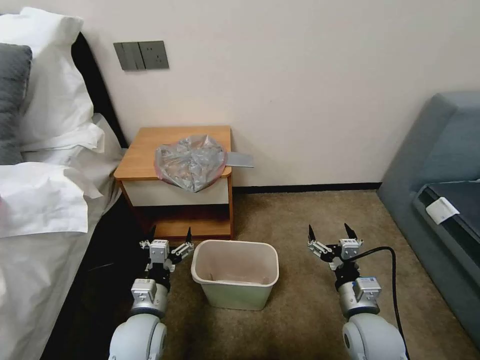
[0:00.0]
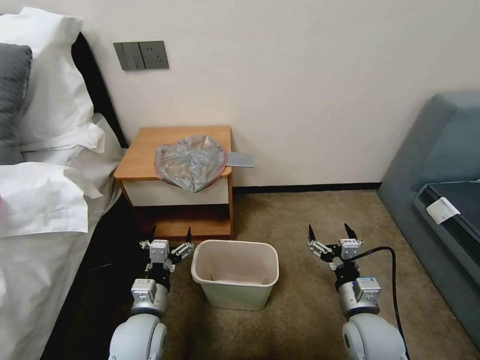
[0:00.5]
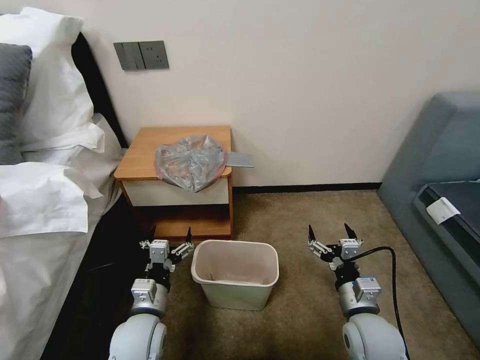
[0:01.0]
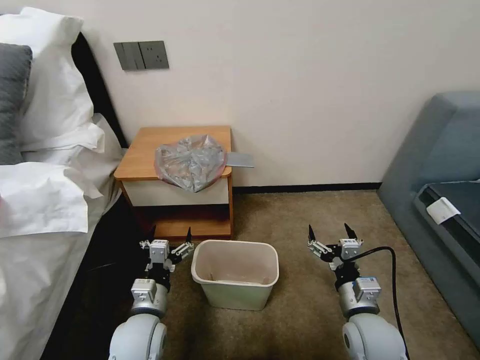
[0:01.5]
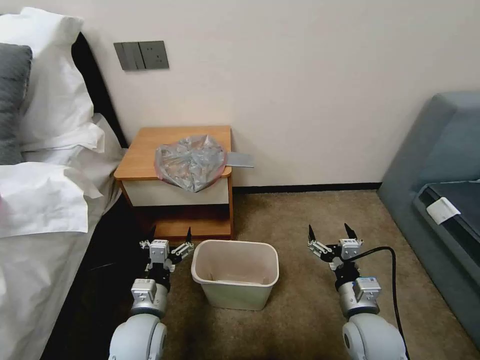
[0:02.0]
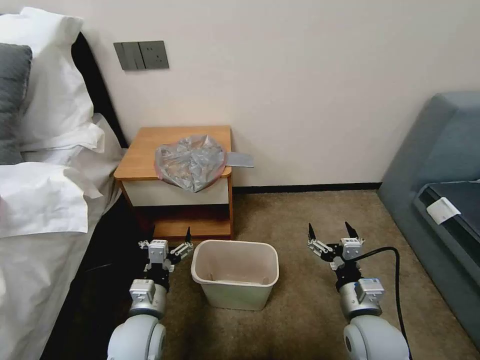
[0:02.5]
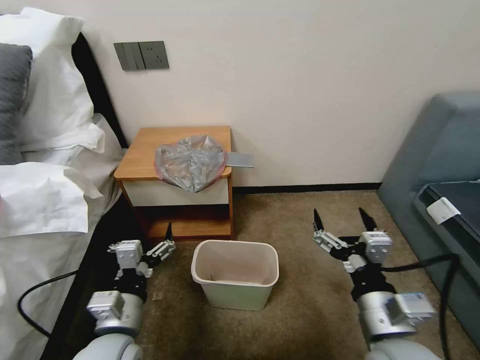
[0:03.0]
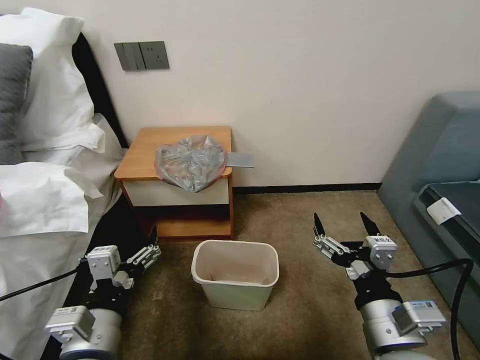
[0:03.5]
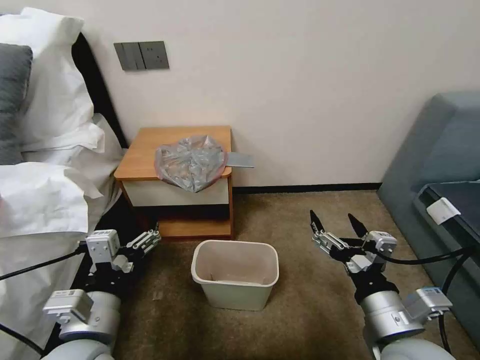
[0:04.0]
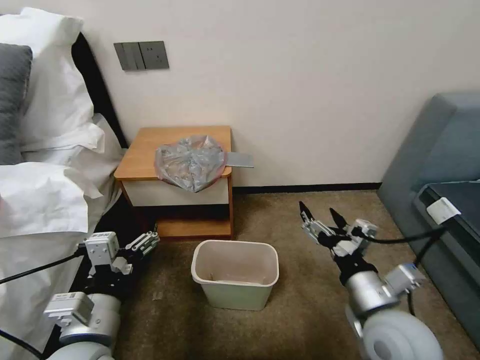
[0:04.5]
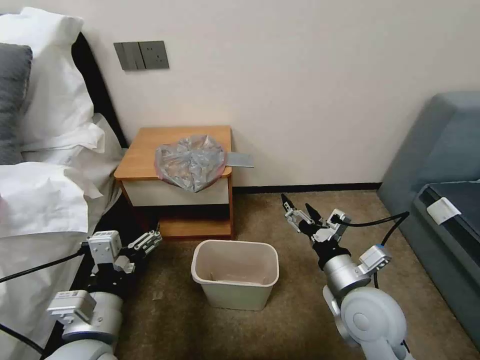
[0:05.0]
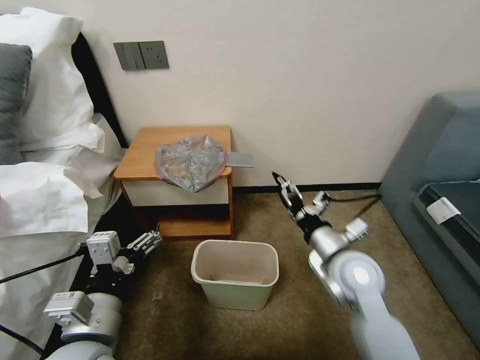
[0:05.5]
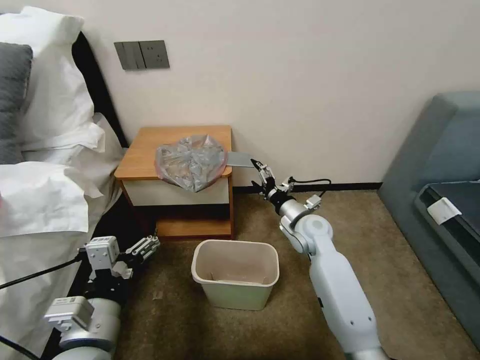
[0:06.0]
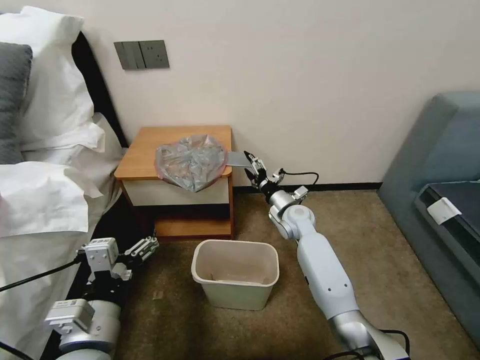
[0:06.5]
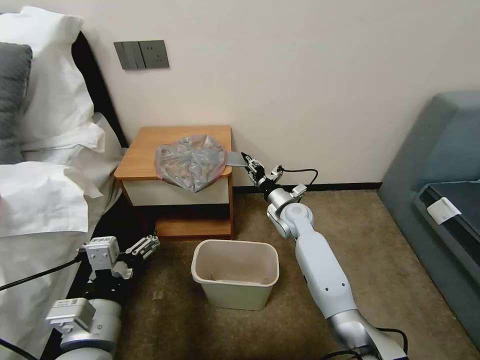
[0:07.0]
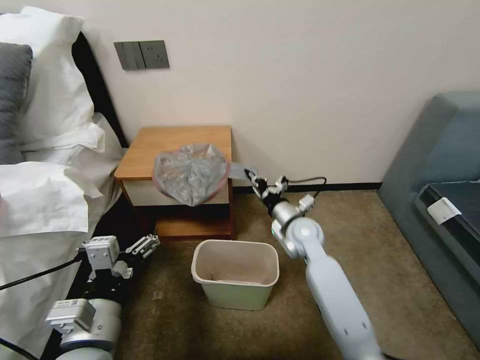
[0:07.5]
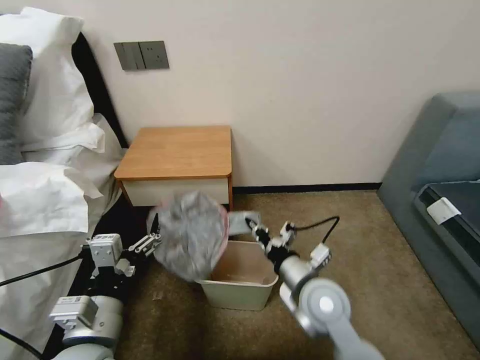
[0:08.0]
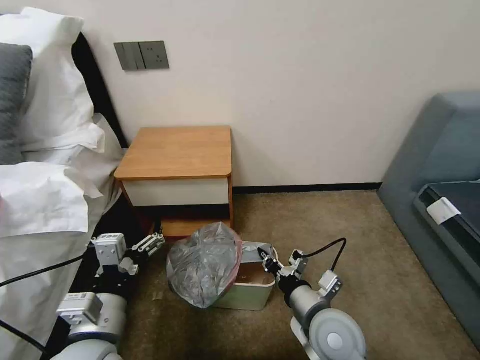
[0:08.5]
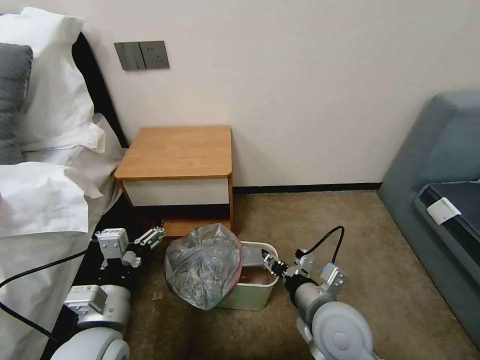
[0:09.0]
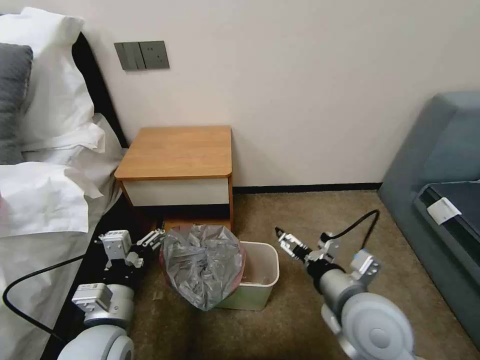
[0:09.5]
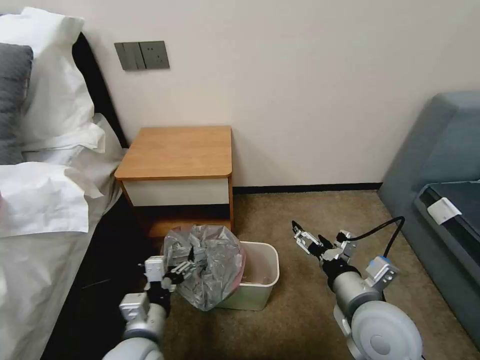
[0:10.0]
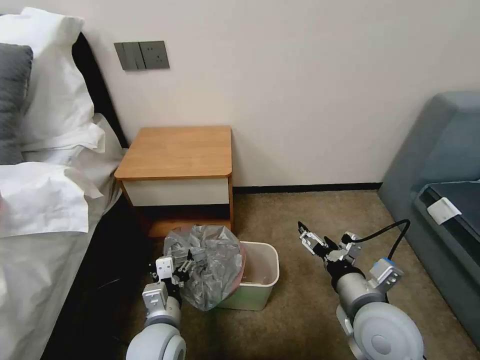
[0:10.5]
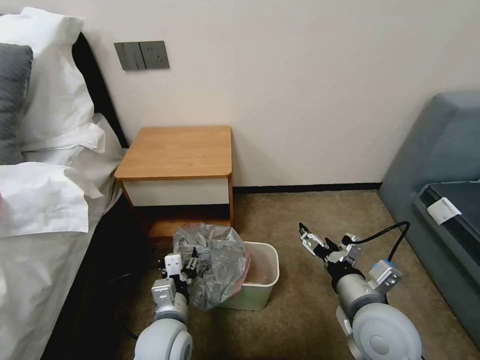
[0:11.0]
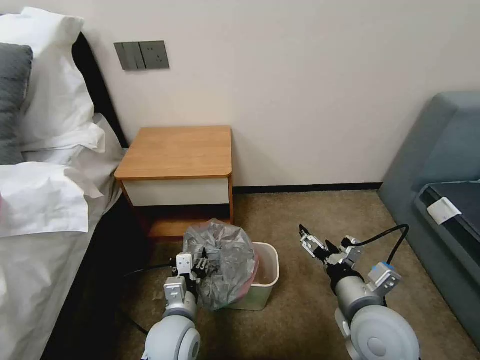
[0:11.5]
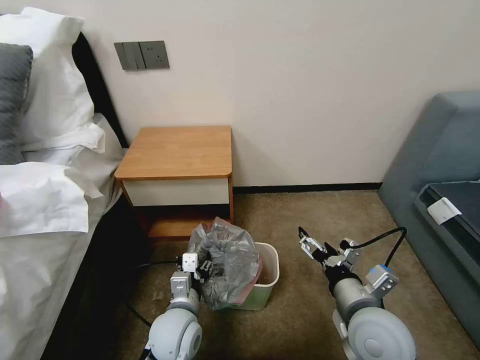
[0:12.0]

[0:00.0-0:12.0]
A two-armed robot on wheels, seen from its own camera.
Task of the whole recording: Pick up the garbage bag from the table and place it over the trash can.
0:02.0 to 0:04.0: Both grippers travel together upward and backward, about 15 cm.
0:04.0 to 0:06.0: The right gripper is displaced forward by roughly 30 cm.
0:06.0 to 0:08.0: The right gripper shifts about 15 cm backward, and closes up.
0:08.0 to 0:10.0: The left gripper is displaced downward by approximately 10 cm. Meanwhile the right gripper travels backward and to the right by roughly 10 cm, and opens its fingers.
0:10.0 to 0:12.0: The left gripper moves forward and to the right, roughly 10 cm, and closes its fingers.

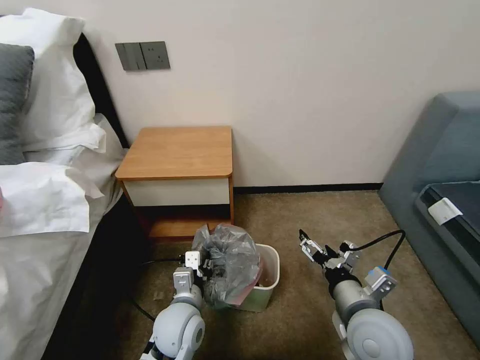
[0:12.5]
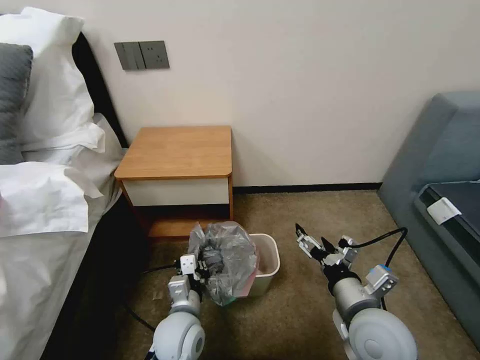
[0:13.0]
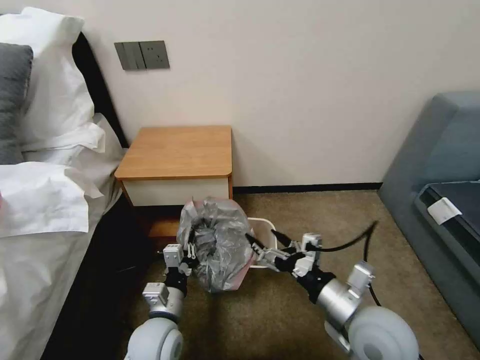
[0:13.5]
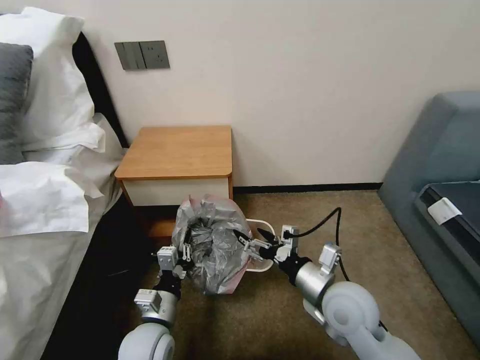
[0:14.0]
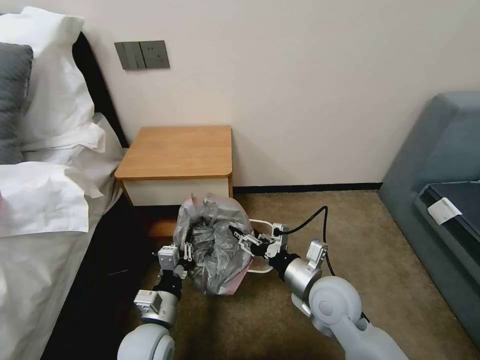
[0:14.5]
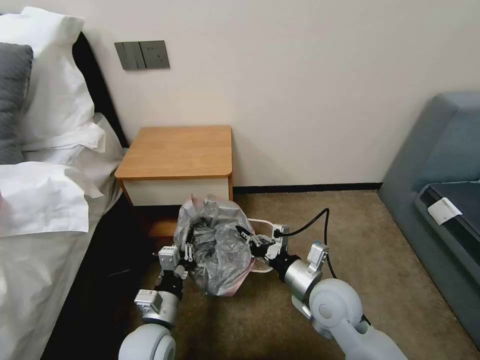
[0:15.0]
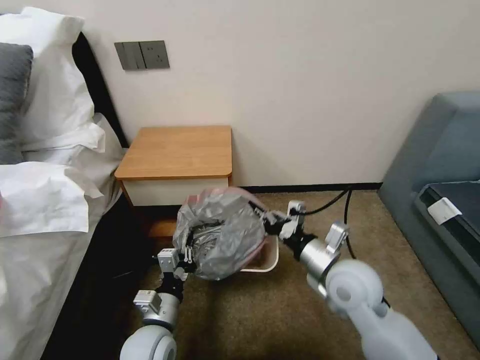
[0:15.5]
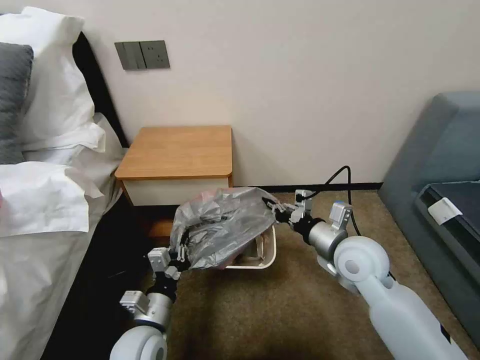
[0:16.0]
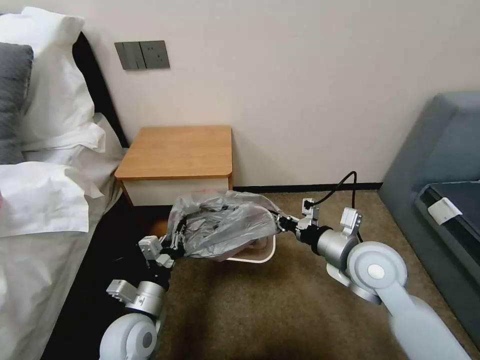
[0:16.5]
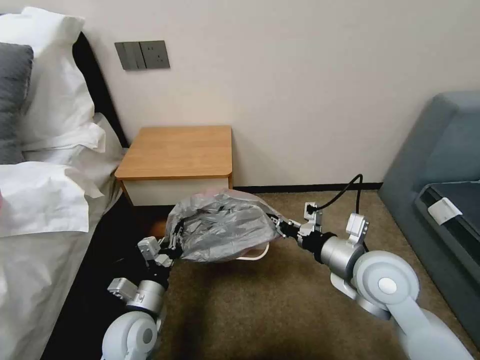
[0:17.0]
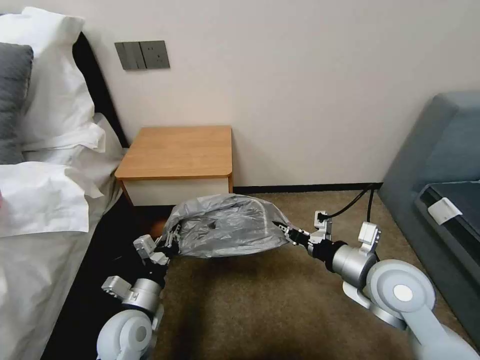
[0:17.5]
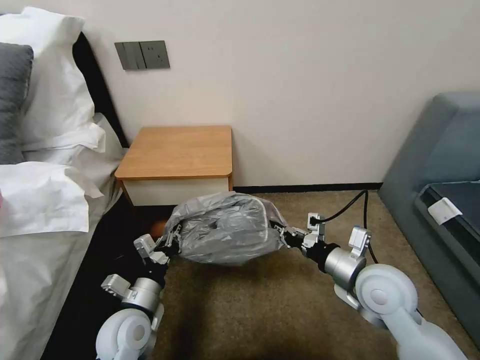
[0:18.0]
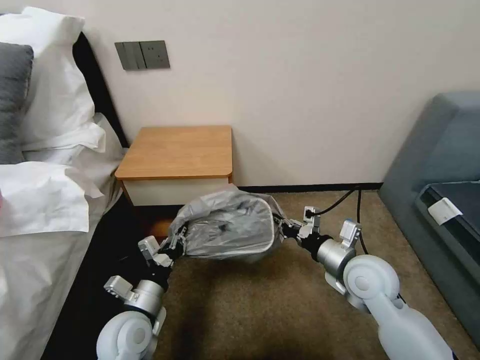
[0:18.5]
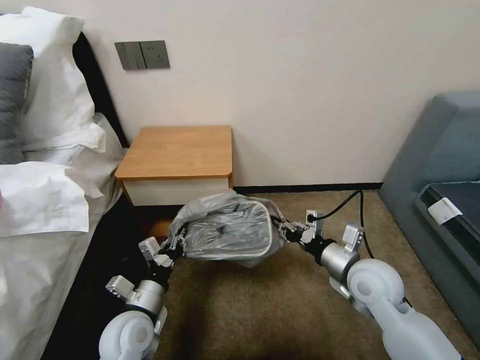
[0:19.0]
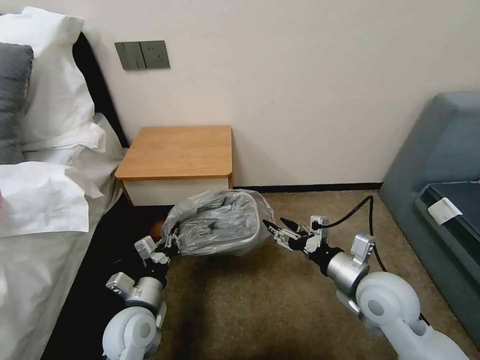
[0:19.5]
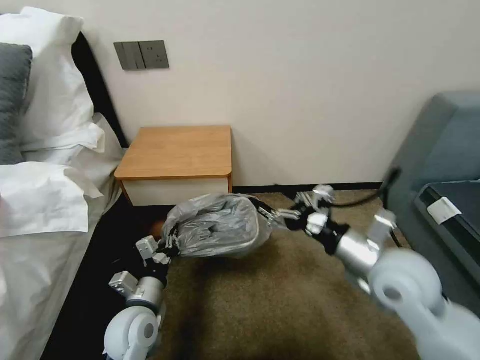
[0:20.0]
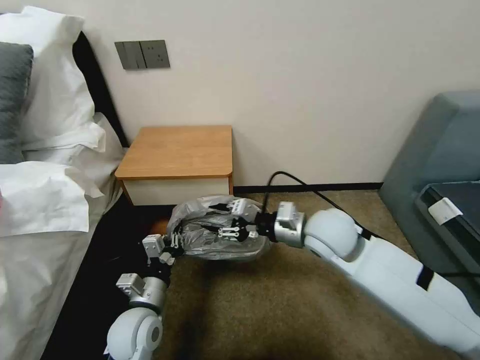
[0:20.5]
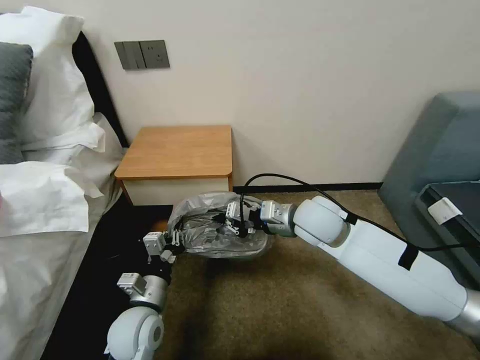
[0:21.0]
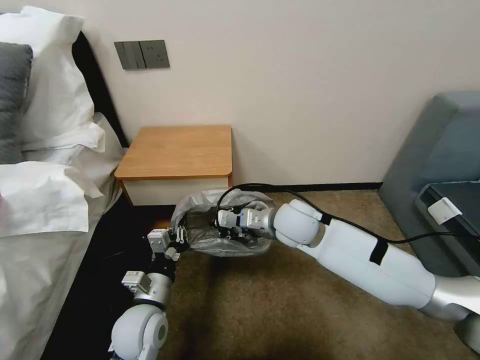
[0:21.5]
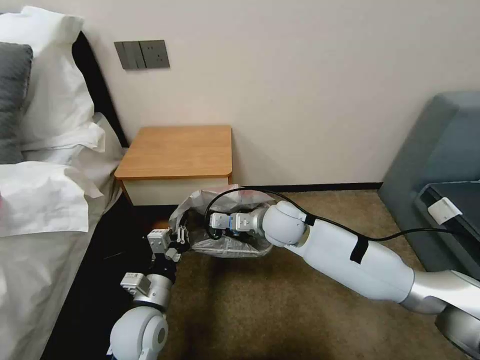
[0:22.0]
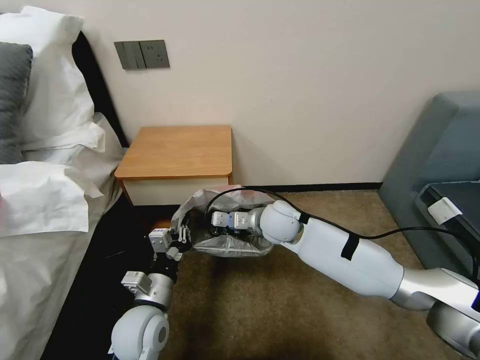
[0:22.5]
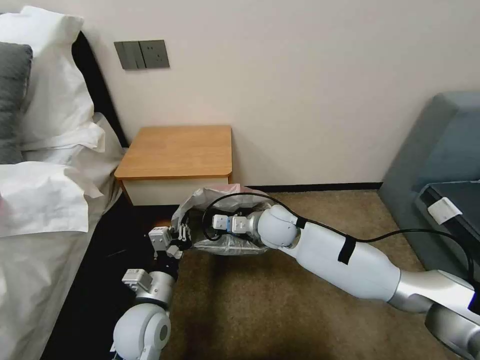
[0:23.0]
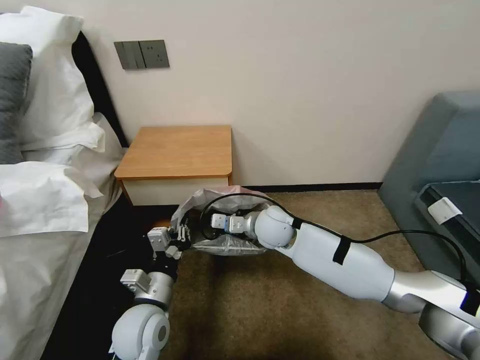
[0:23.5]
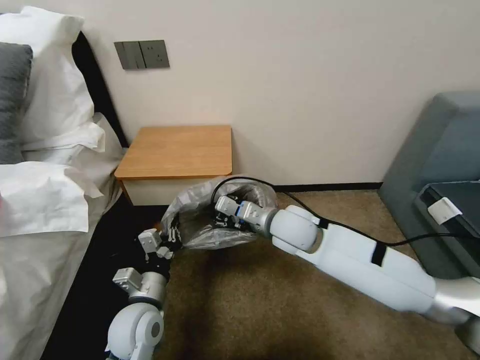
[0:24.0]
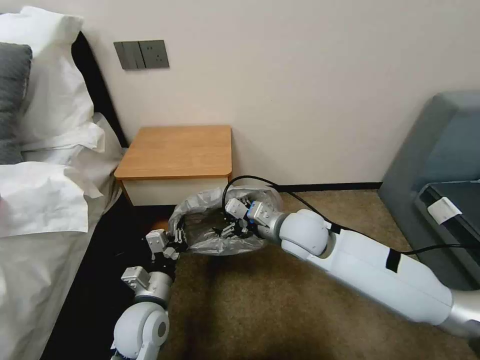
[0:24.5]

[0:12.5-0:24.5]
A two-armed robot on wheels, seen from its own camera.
Task of the whole recording: Pick up the garbage bag from the table and place it over the trash can.
0:12.5 to 0:14.5: The right gripper travels forward by roughly 5 cm, and closes. The left gripper is displaced to the left by roughly 5 cm, and closes up.
0:14.5 to 0:16.5: The right gripper travels upward and to the right by some 10 cm, and closes up.
0:16.5 to 0:18.5: The grippers move only a little.
0:18.5 to 0:20.5: The right gripper is displaced to the left, upward and forward by some 10 cm, and opens up.
0:20.5 to 0:22.5: The right gripper goes roughly 10 cm to the left, forward and downward, and closes up.
0:22.5 to 0:24.5: The right gripper heads backward, covering about 5 cm, and opens its fingers.

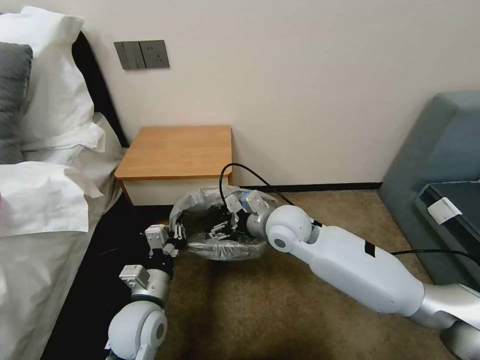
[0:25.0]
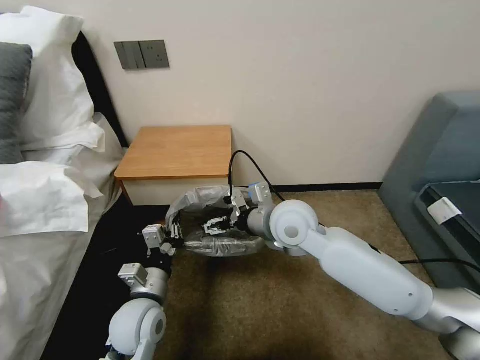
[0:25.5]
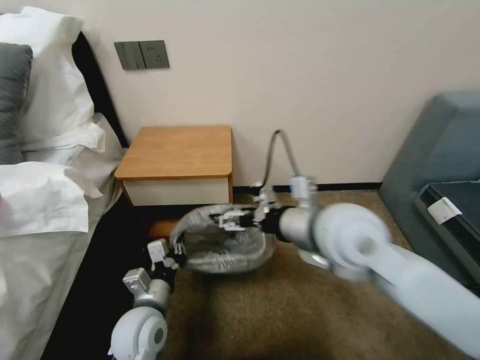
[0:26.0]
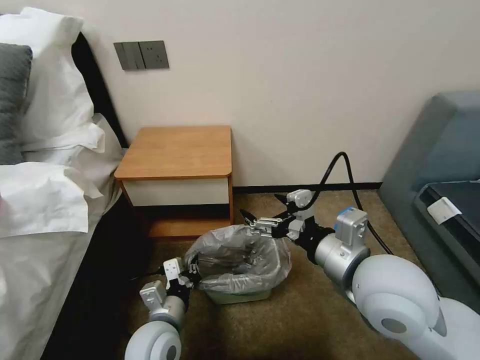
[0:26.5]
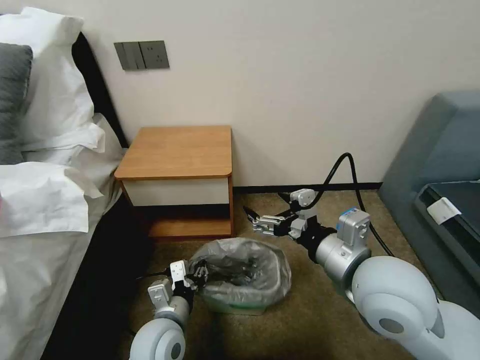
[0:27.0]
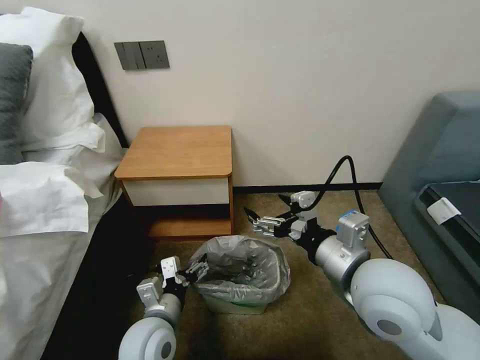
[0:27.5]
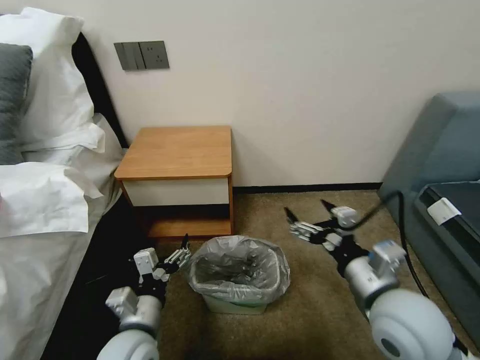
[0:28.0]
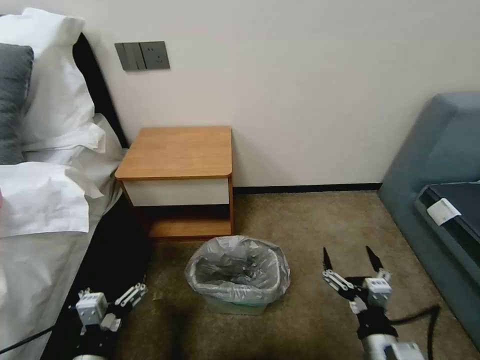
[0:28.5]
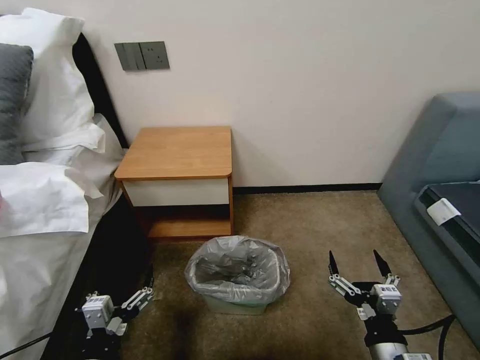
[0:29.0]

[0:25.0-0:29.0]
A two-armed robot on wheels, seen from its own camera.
Task of the whole recording: Pick up the garbage bag from the table and place it over the trash can.
0:25.0 to 0:27.0: The left gripper ends up approximately 5 cm from where it was, and opens its fingers, while the right gripper goes about 20 cm backward, to the right and upward.
0:27.0 to 0:29.0: The left gripper shifts some 15 cm backward and to the left, and opens. The right gripper goes about 25 cm downward and backward.
